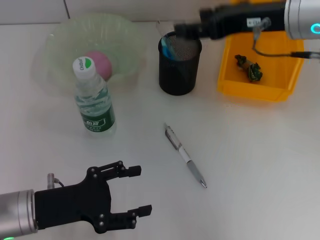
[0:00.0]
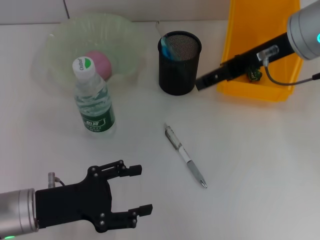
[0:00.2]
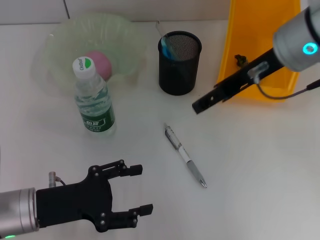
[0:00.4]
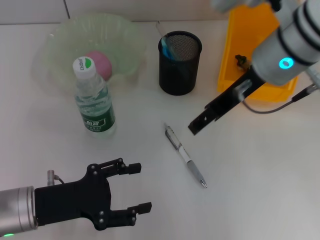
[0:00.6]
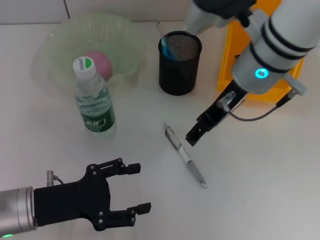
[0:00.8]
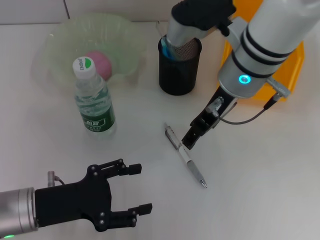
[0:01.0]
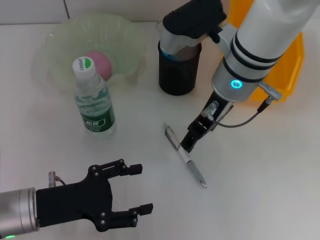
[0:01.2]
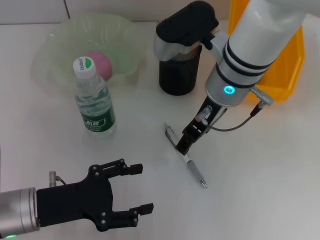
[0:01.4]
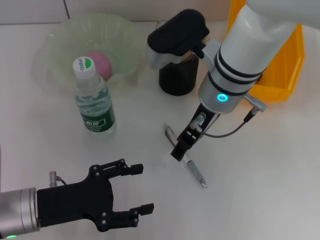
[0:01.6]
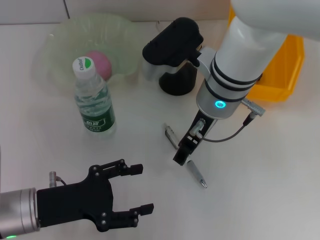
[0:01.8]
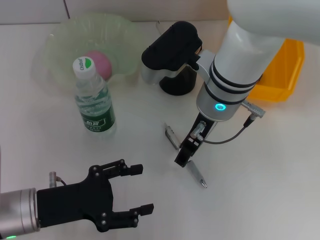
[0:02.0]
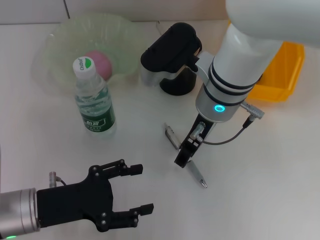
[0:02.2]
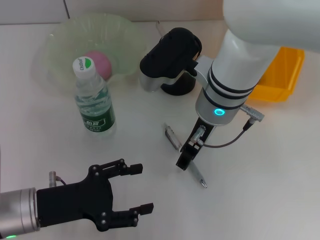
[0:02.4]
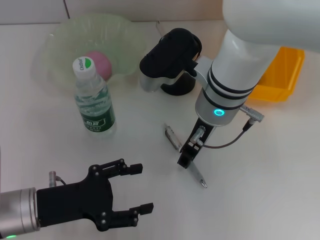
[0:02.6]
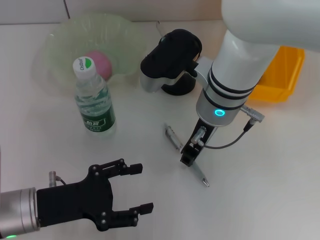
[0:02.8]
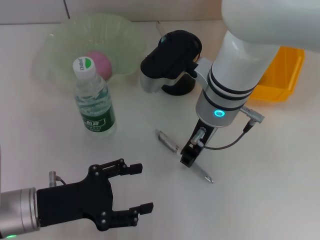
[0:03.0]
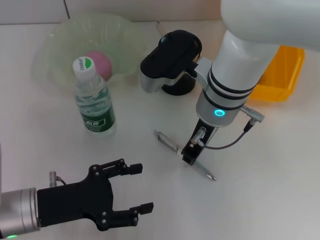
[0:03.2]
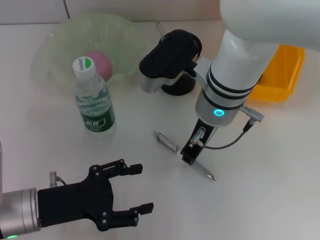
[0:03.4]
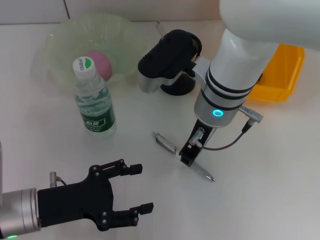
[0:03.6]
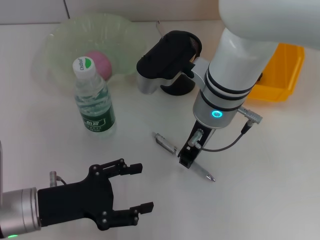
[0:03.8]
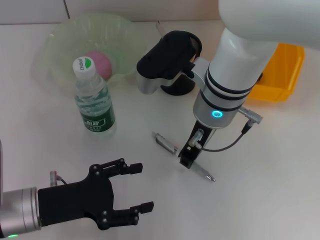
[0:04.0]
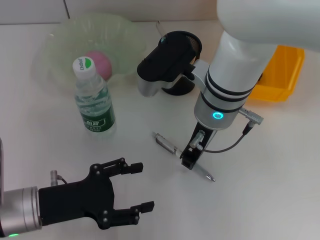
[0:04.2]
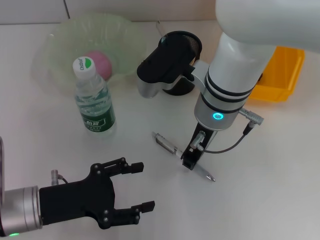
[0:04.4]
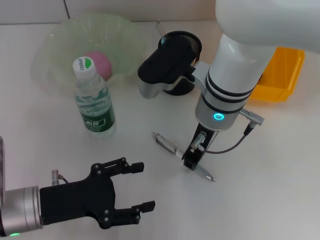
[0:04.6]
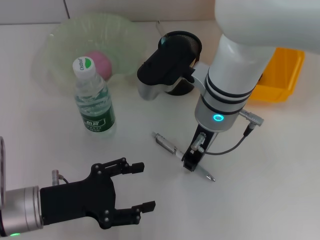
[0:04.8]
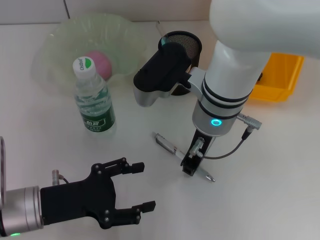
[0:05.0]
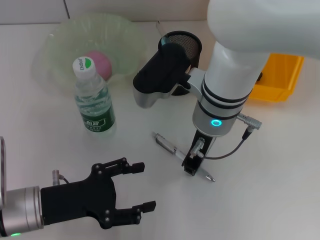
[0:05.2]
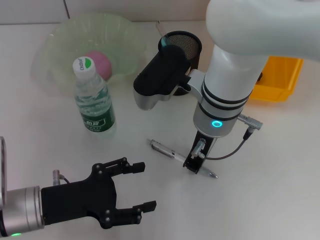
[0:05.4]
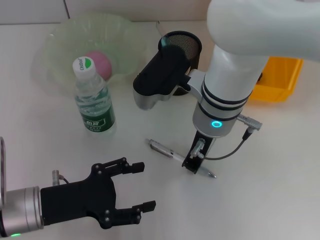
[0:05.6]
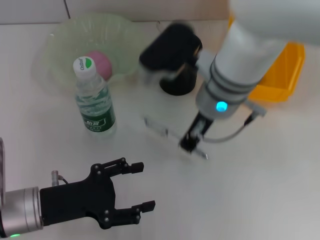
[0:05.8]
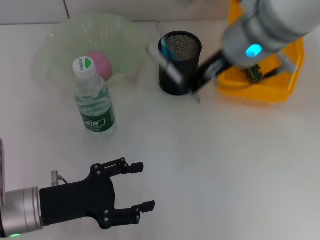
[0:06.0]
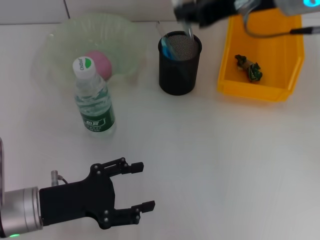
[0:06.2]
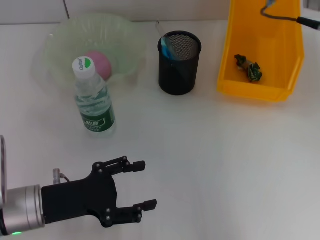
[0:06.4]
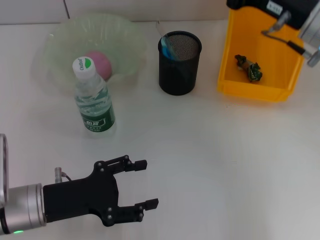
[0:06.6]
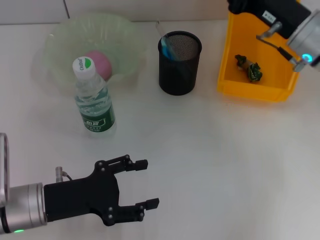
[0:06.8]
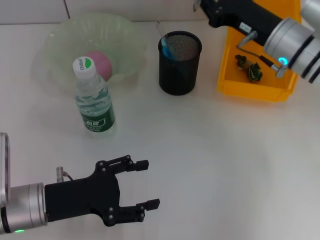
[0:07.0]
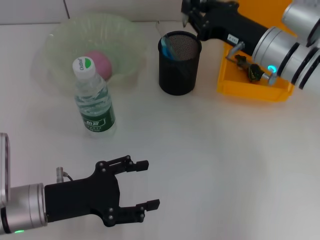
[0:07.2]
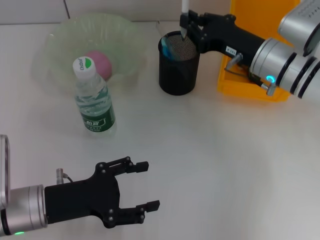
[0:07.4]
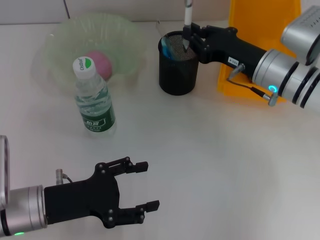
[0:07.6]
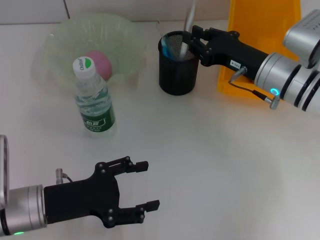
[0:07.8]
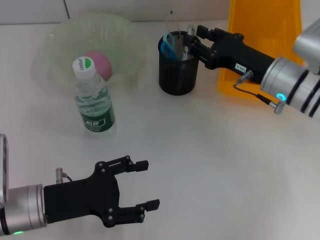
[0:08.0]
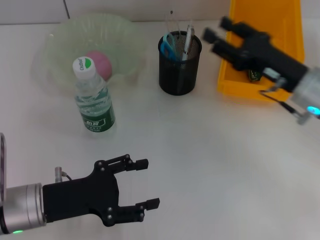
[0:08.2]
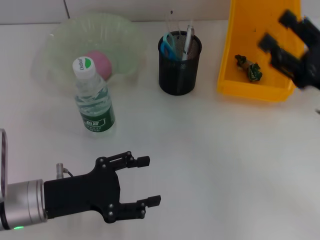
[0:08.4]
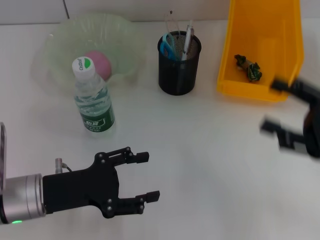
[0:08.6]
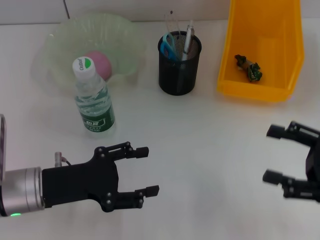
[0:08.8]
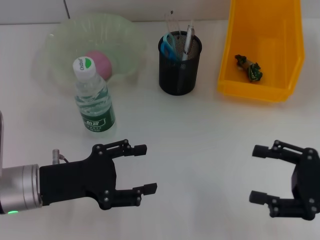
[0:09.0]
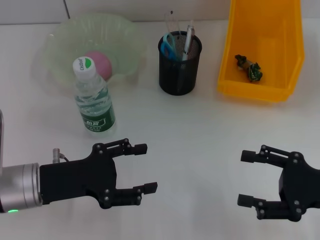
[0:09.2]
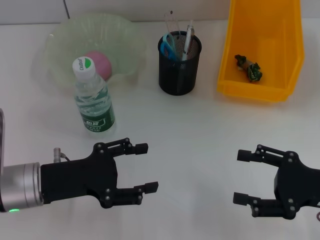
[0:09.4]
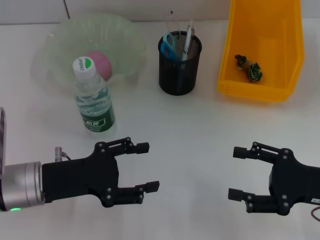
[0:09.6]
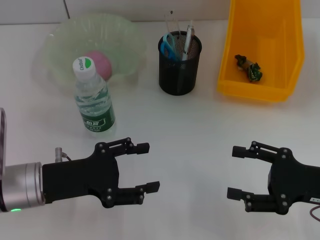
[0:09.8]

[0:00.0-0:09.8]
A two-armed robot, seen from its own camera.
Step, 0:00.0 to 0:05.4: Grab the gray spring-action pen with the right hand.
Step, 0:05.6 to 0:07.8: Place the gray spring-action pen into the pen holder with the right hand.
0:00.0 to 0:01.4: The right gripper goes roughly 10 cm to the left and downward.
0:01.4 to 0:02.8: The grippers move only a little.
0:02.8 to 0:04.2: The right gripper closes up.
0:04.2 to 0:05.6: The two grippers keep their place.
0:05.6 to 0:07.0: The right gripper goes roughly 15 cm to the right and forward, and moves approximately 15 cm upward and comes back.
0:07.0 to 0:08.4: The right gripper heads backward and to the right, covering about 15 cm, and opens its fingers.
0:08.4 to 0:09.8: The right gripper ends up some 5 cm from where it was.
